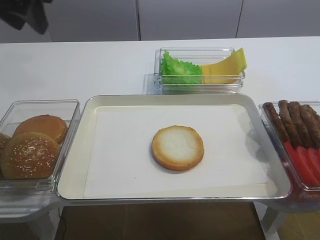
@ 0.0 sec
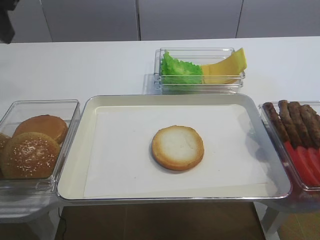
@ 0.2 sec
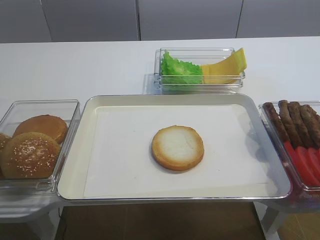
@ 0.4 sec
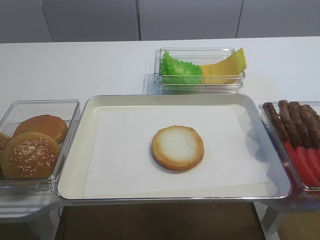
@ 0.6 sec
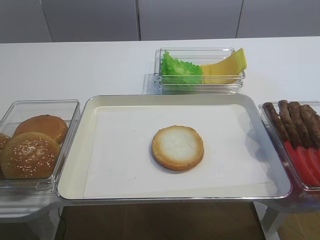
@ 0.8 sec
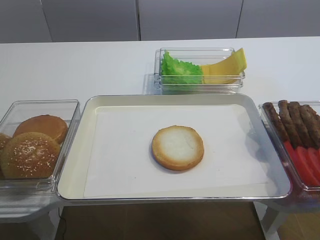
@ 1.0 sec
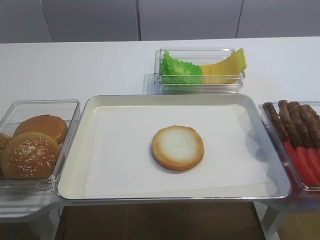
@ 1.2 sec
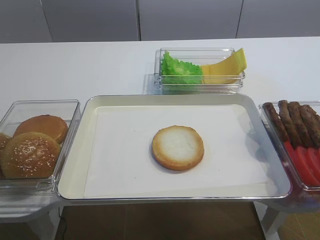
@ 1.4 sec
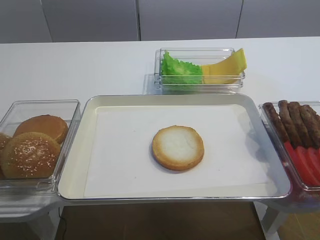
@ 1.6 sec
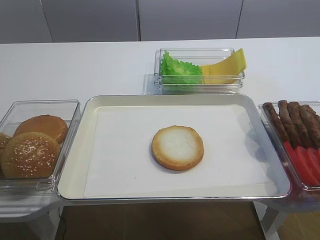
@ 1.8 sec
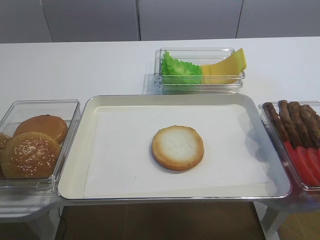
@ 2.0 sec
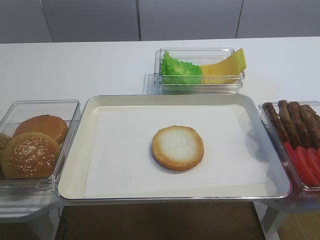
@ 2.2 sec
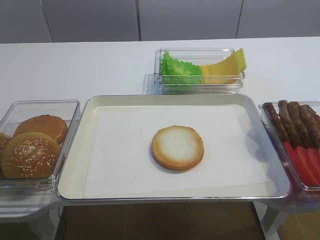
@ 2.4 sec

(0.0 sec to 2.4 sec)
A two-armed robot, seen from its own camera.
0.0 sec - 1.2 sec: The left gripper is displaced backward by roughly 30 cm.

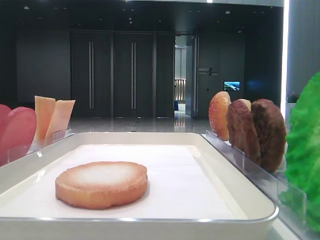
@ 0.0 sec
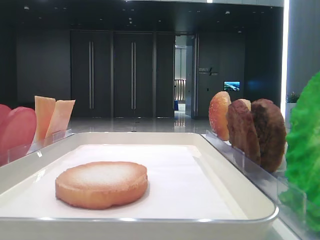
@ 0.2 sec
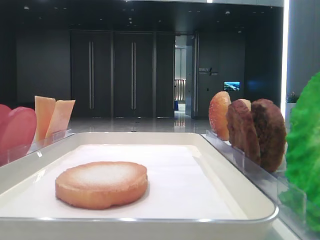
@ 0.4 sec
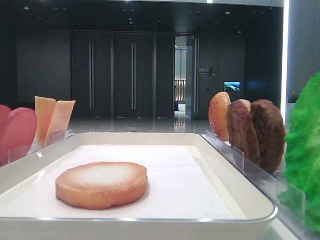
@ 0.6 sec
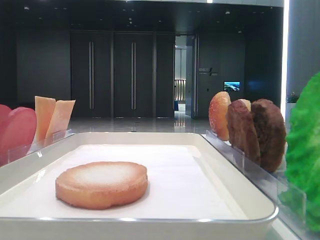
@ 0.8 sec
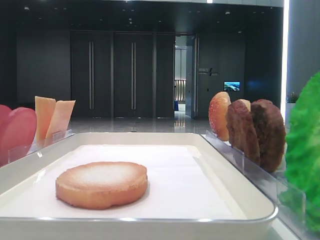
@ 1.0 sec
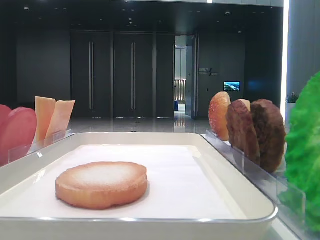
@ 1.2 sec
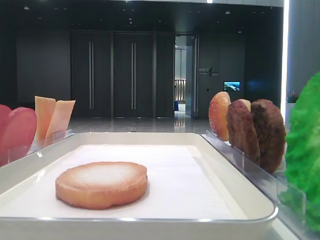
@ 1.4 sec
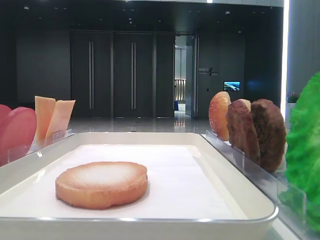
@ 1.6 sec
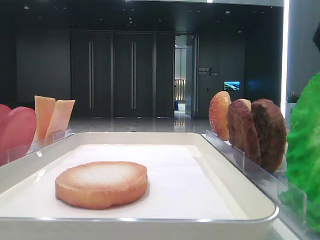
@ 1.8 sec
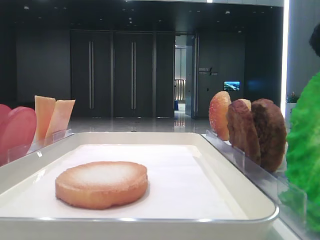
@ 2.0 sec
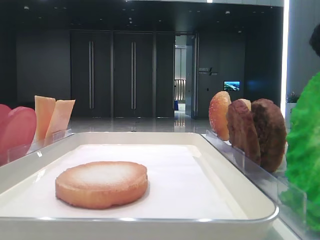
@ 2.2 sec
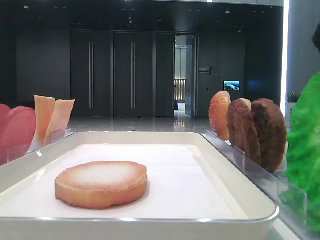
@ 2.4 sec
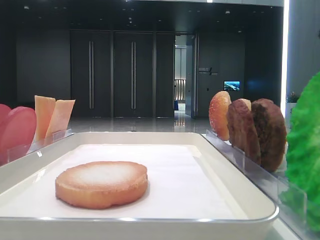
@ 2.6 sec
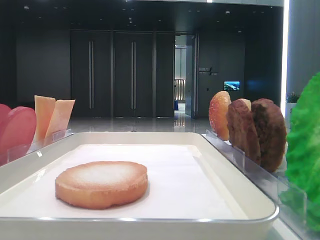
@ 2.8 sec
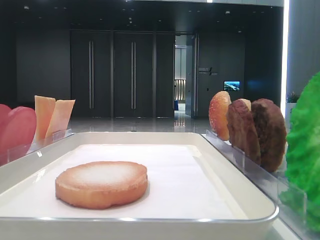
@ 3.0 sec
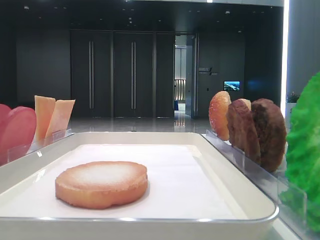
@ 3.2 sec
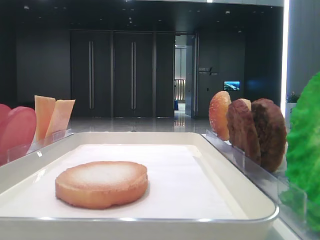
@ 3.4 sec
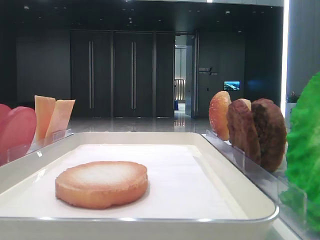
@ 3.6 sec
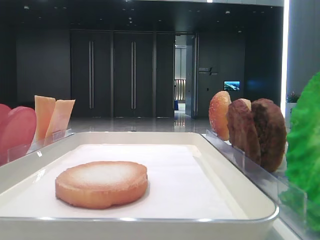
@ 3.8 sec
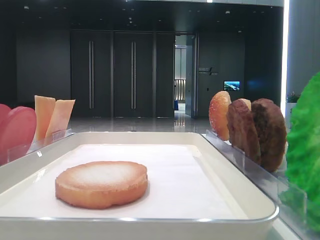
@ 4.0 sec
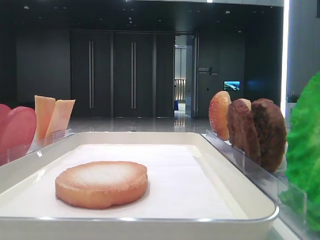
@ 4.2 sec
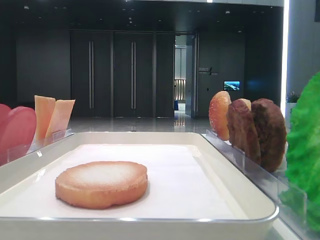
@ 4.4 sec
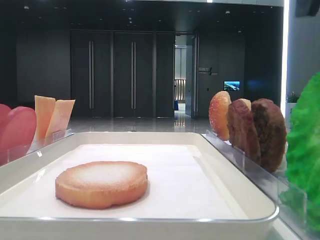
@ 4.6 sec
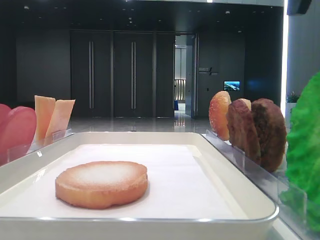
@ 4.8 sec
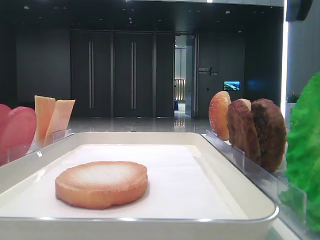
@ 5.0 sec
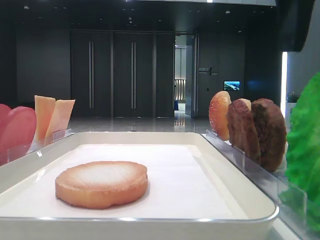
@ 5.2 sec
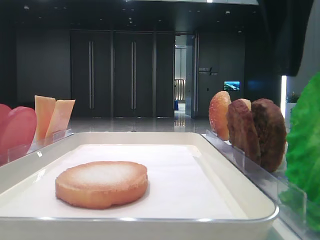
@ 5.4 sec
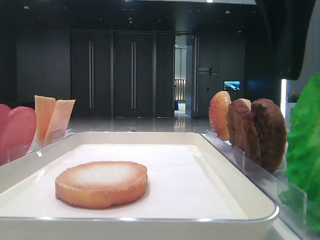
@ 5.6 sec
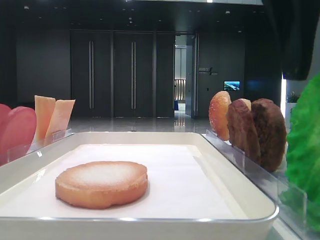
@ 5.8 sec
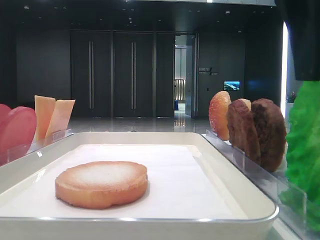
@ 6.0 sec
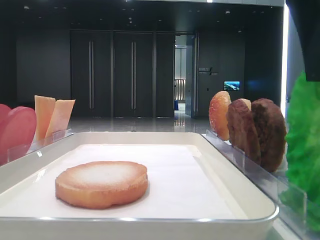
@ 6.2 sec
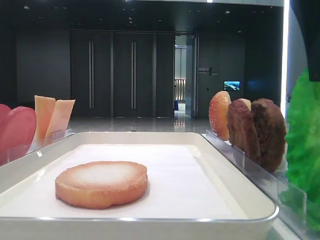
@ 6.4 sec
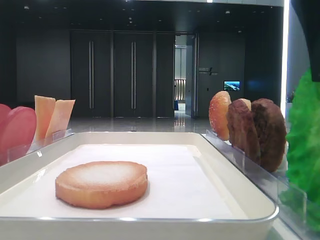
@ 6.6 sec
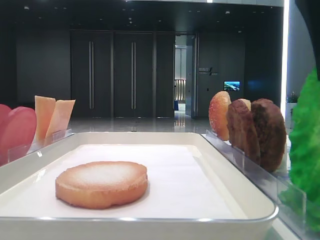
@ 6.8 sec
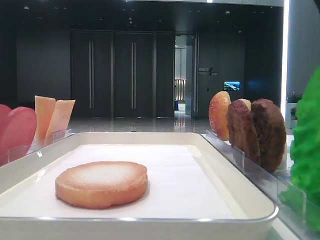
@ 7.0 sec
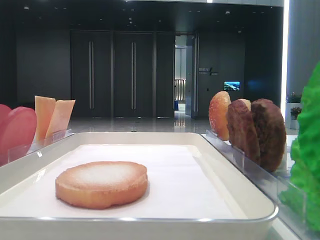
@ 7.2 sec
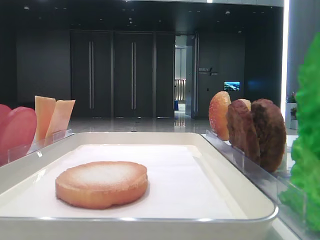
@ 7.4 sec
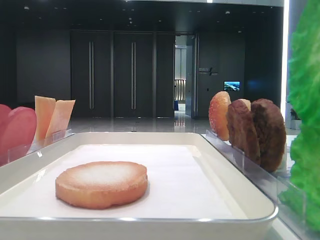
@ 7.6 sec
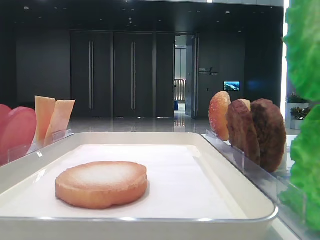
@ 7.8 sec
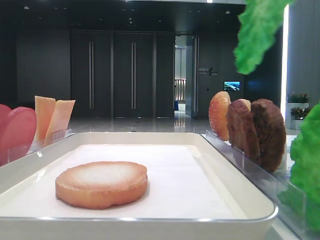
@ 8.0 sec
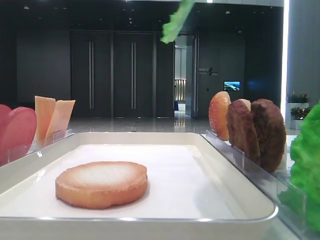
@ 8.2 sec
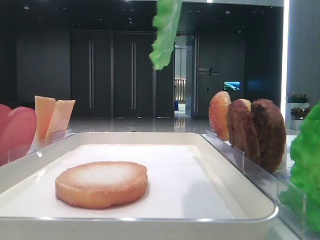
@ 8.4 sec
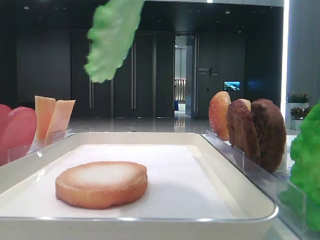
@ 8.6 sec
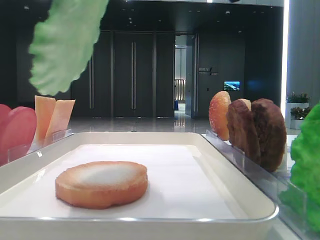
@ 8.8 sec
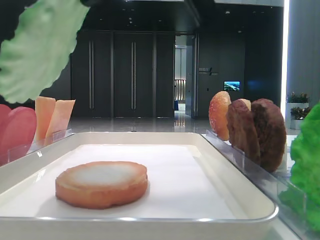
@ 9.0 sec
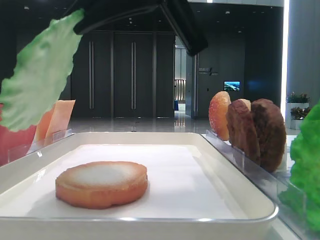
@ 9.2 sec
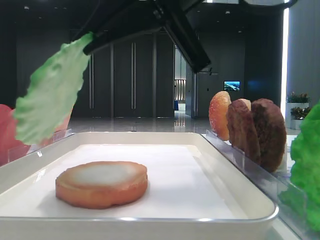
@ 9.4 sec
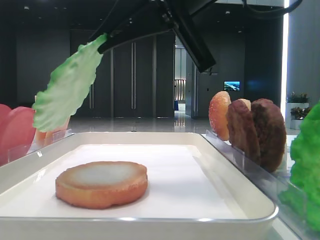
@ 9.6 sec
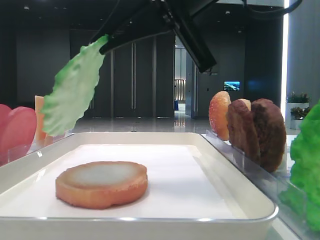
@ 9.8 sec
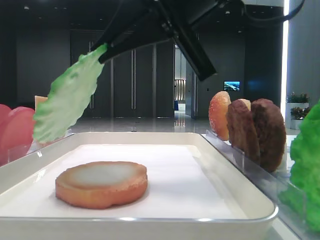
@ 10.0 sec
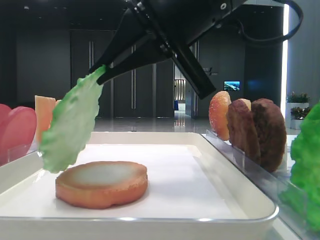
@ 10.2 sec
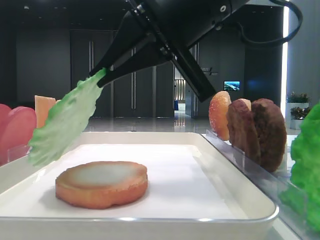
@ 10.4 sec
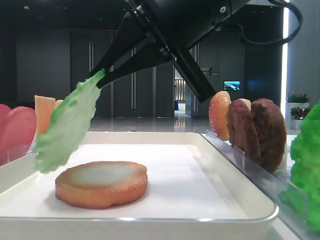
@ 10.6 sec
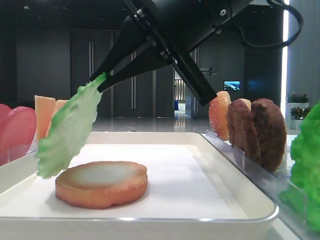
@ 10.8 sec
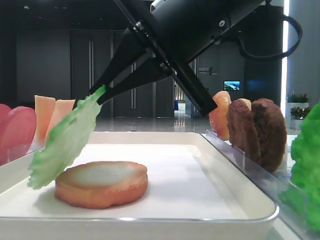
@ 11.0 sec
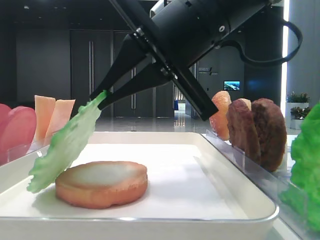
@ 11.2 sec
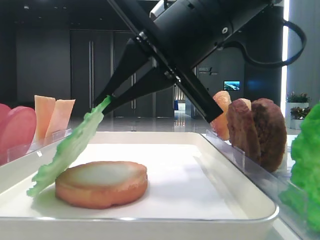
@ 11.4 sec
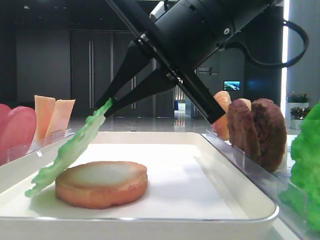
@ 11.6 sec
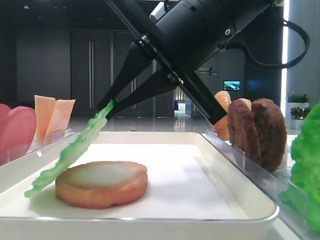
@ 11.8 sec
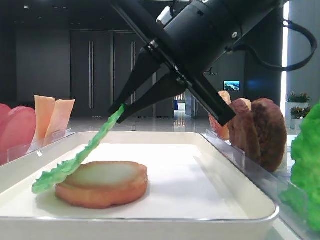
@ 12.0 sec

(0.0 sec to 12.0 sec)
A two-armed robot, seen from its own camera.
Step, 0.0 sec - 6.4 sec: Grab the lettuce leaf with the right hand.
4.4 sec - 6.0 sec: The right gripper shifts by some 5 cm.
6.0 sec - 7.6 sec: The right gripper heads upward, covering roughly 5 cm, and closes.
7.6 sec - 9.0 sec: The right gripper travels to the left by roughly 10 cm.
9.0 sec - 10.4 sec: The right gripper moves downward, about 5 cm.
10.4 sec - 12.0 sec: The grippers move only a little.

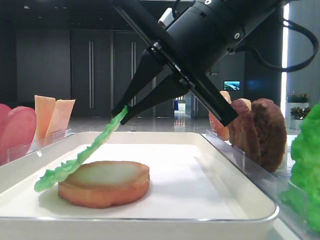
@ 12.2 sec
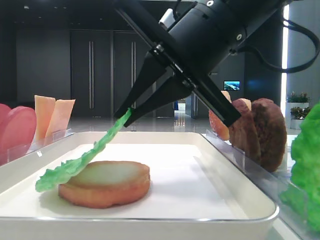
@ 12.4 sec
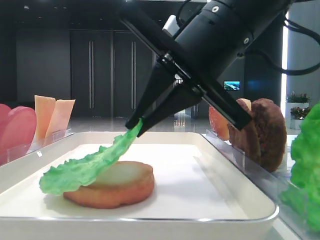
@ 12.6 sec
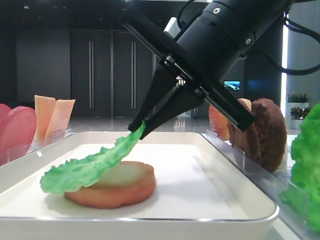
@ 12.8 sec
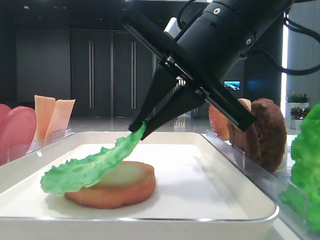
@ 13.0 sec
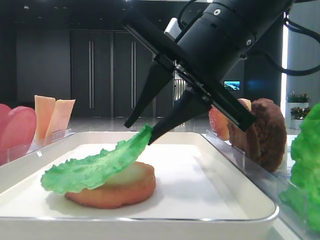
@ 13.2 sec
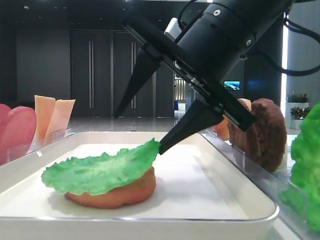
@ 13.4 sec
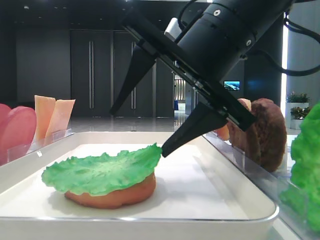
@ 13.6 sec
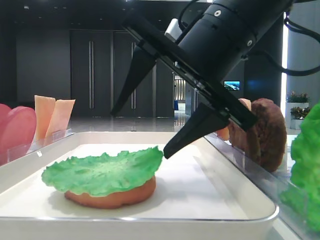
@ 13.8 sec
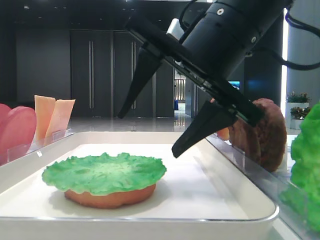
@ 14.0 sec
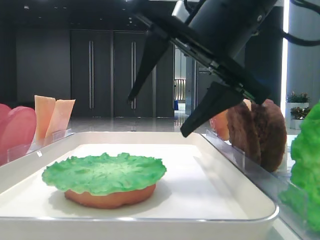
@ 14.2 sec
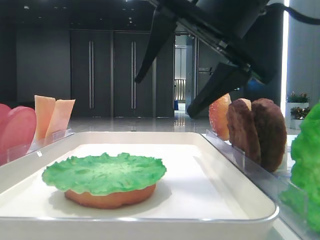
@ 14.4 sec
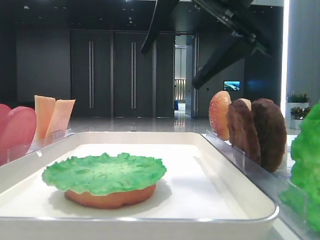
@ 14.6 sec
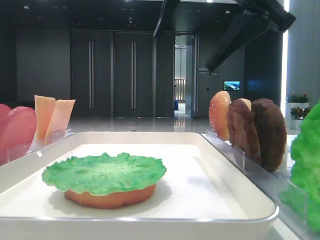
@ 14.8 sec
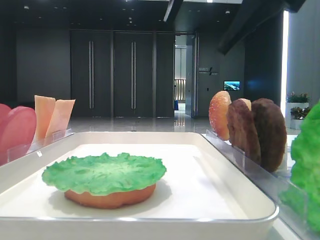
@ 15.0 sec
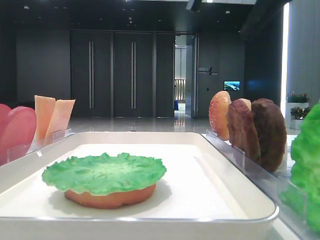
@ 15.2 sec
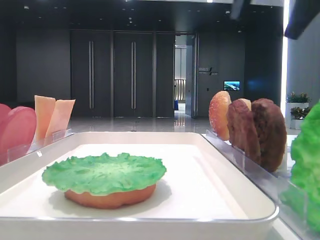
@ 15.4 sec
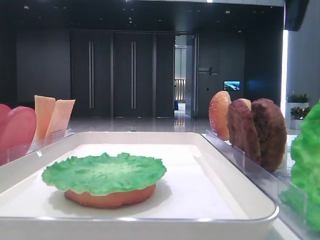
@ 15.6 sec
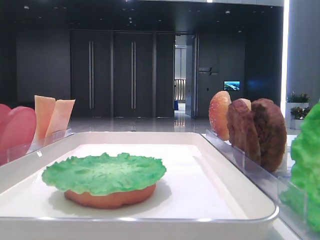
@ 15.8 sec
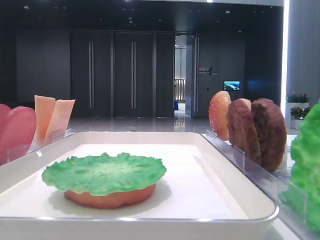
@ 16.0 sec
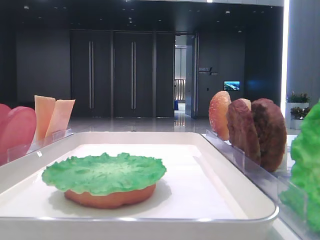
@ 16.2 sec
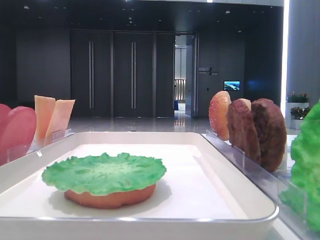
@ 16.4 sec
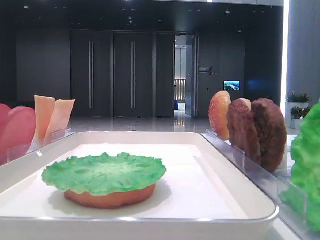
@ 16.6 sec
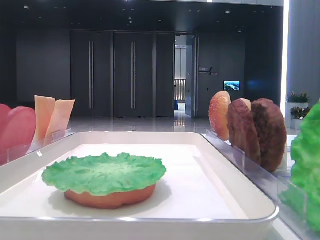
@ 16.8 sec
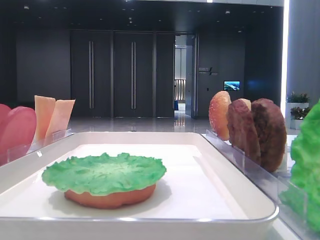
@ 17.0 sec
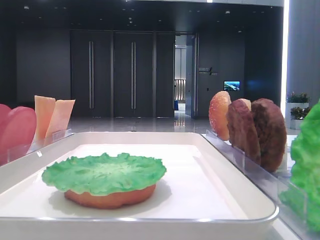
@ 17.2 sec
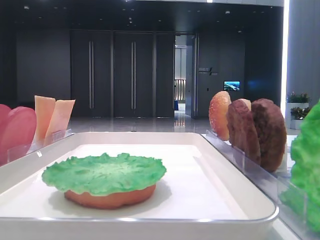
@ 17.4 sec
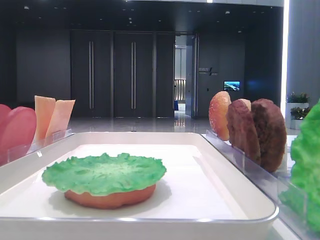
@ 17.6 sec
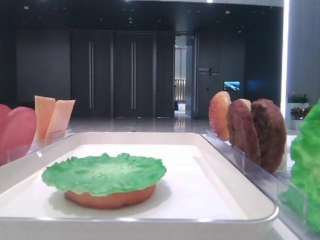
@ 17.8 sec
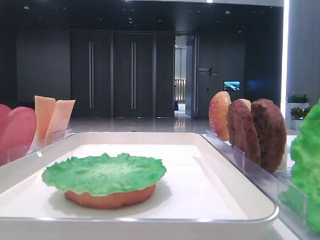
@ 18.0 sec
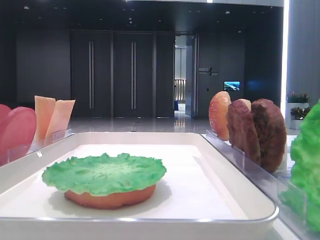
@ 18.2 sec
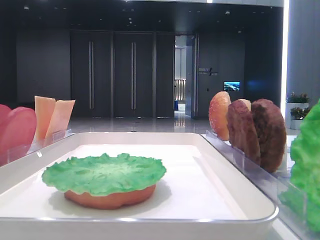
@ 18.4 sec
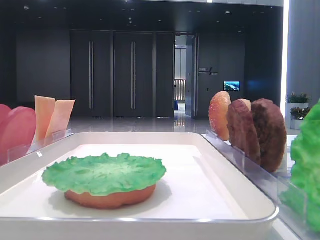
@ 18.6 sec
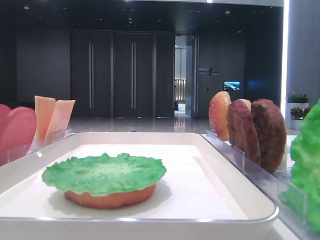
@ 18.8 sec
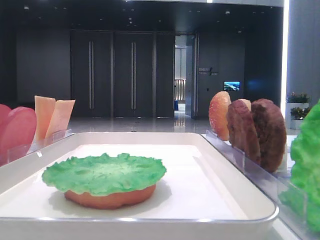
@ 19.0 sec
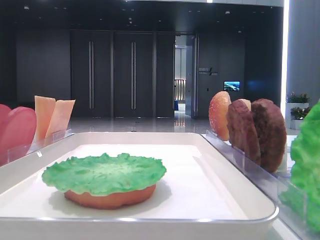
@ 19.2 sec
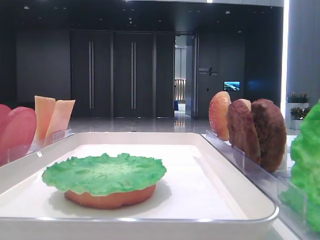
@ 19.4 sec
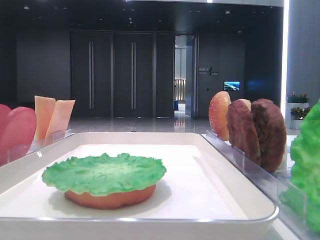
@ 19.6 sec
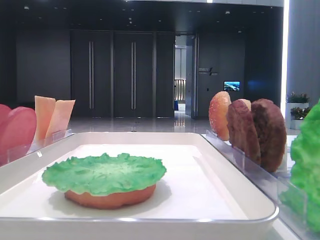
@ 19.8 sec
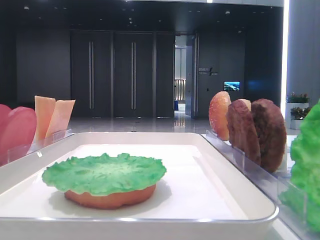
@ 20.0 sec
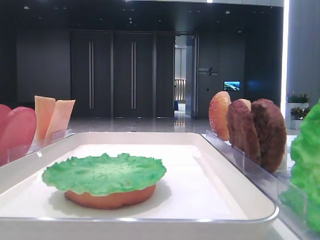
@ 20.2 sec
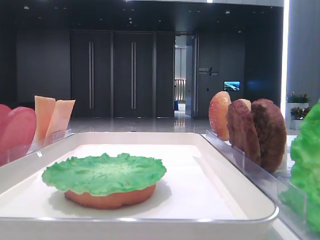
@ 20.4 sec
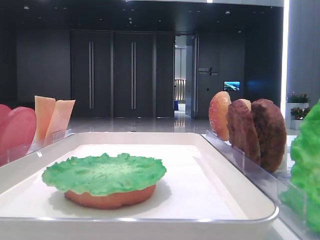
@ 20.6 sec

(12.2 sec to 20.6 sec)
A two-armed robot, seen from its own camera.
12.2 sec - 13.6 sec: The right gripper opens.
13.6 sec - 15.0 sec: The right gripper heads upward, covering approximately 10 cm.
15.0 sec - 16.4 sec: The right gripper heads to the right, covering about 20 cm.
19.2 sec - 20.6 sec: Neither gripper changes place.
